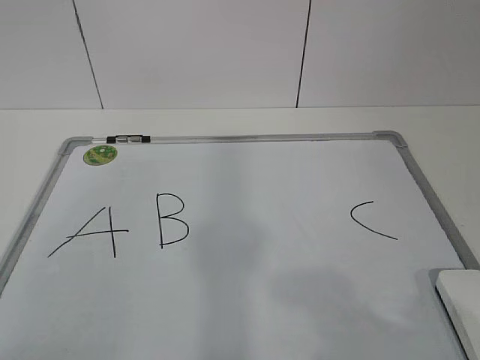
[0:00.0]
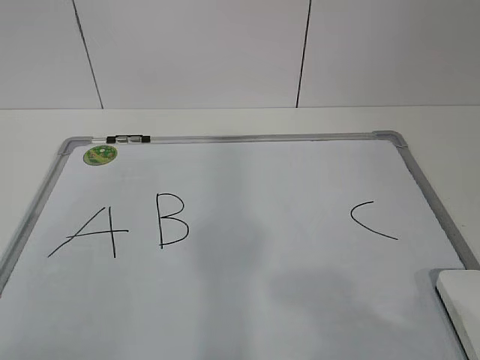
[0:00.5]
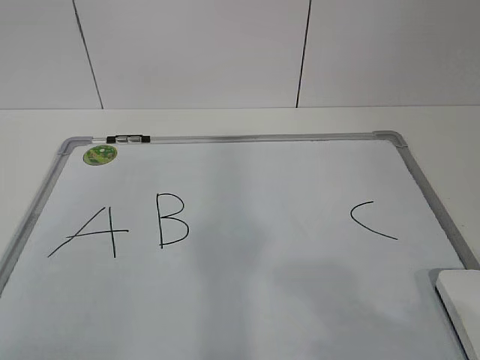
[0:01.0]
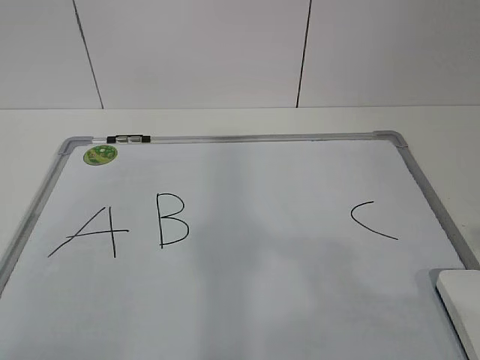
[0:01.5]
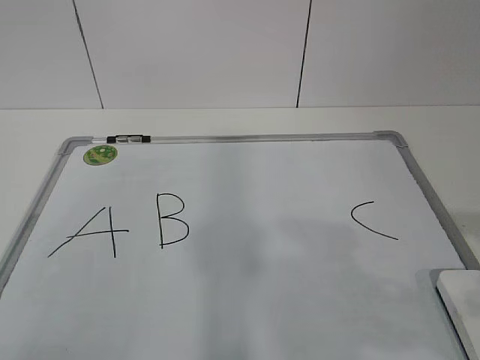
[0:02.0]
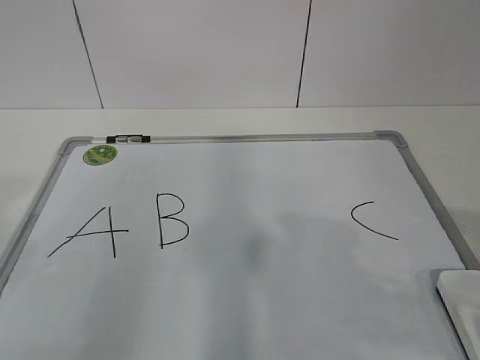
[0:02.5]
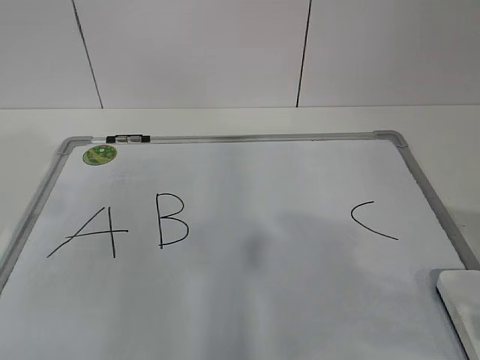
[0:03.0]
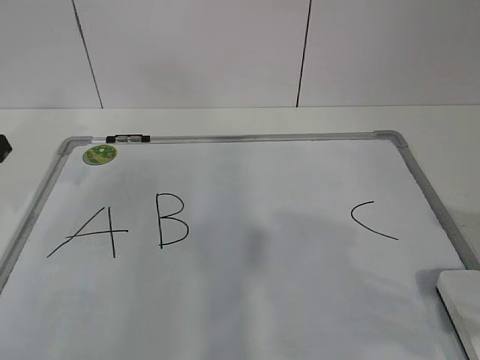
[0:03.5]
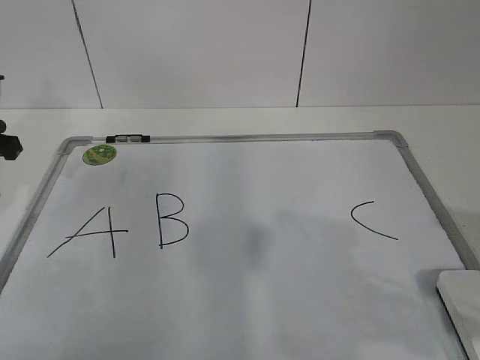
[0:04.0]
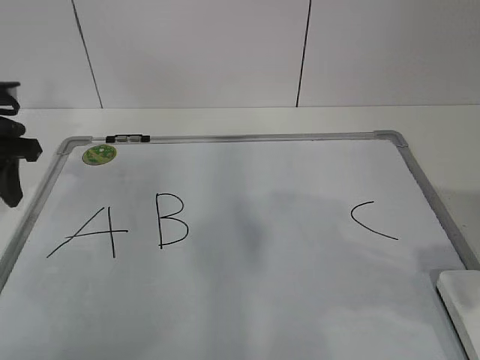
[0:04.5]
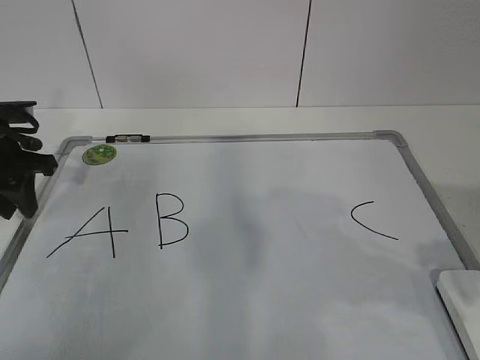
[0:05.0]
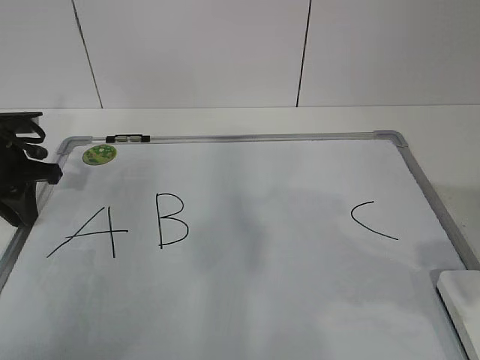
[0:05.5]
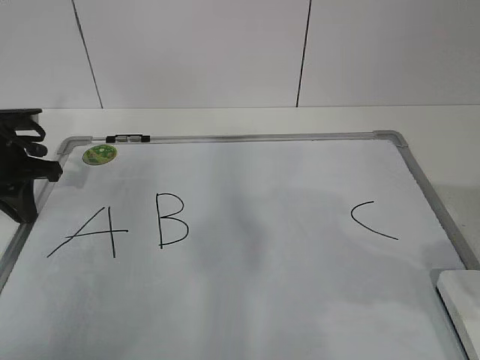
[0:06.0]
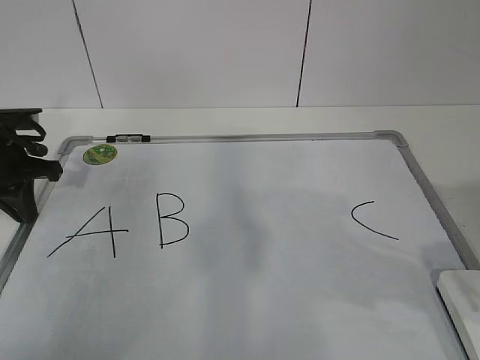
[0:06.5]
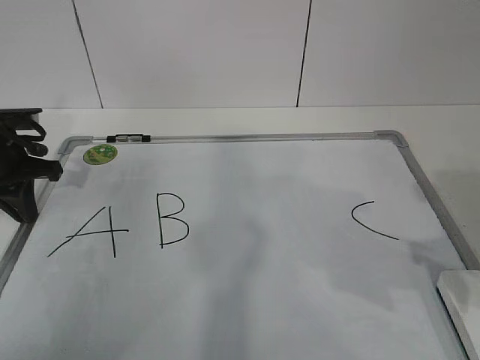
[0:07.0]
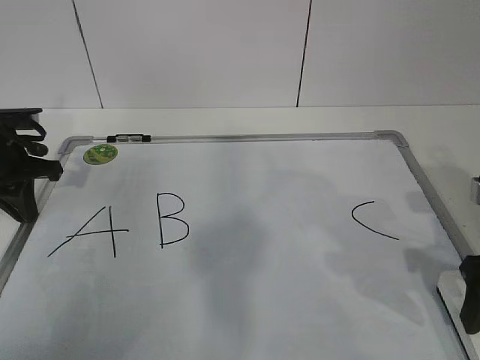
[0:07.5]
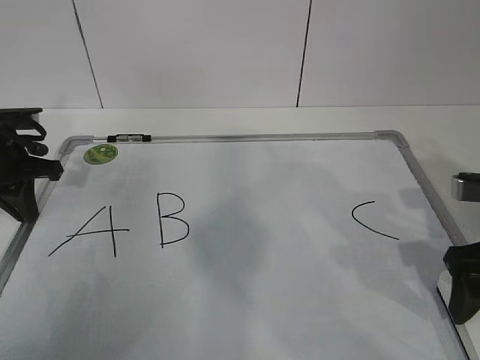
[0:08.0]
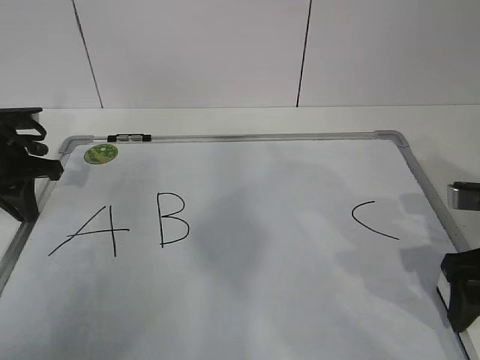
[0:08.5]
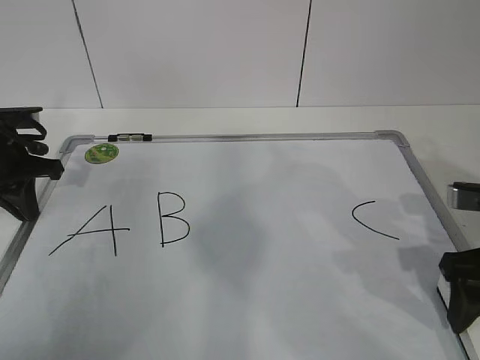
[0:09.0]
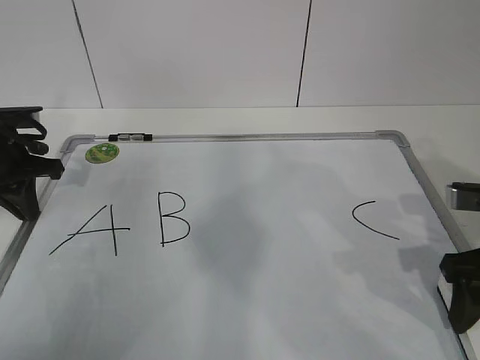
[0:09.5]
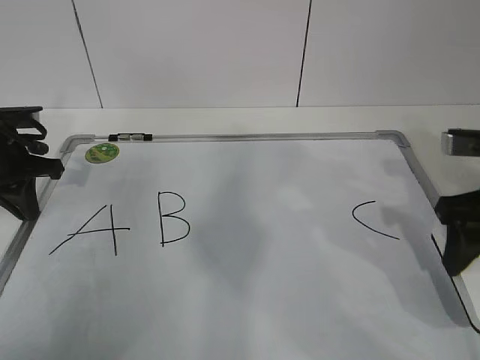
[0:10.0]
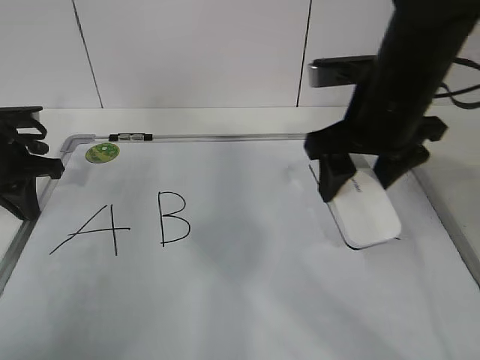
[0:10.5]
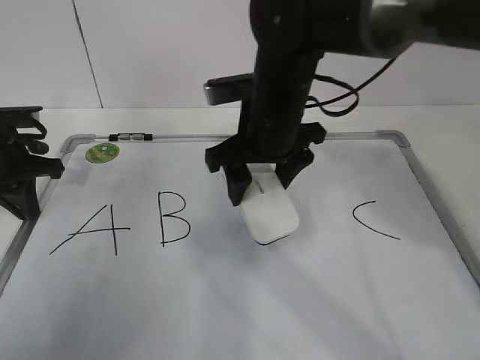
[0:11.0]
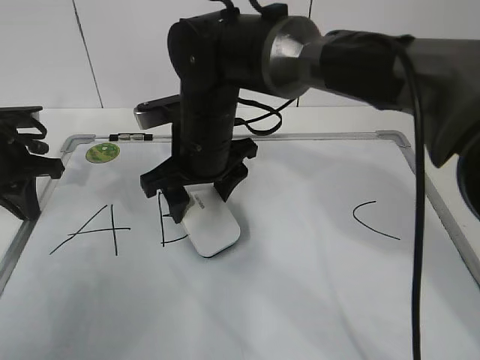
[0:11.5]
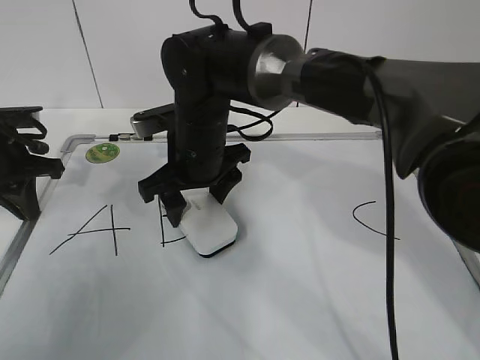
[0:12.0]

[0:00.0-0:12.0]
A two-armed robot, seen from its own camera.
Task of the whole recording: pick up the eraser on the blackboard and erase the letter "B".
Step, 0:00.0 to 0:04.5: Hold the drawing board steady with your left hand.
Step, 0:05.0 to 0:07.5: Grab the eraser with your right hand.
Step, 0:08.0 to 0:10.0: Put down the eraser with your right hand.
0:02.0 to 0:04.0: The left gripper heads forward, covering about 35 cm.
0:04.0 to 0:06.0: The left gripper heads downward, covering about 5 cm, and closes up.
0:06.0 to 0:08.0: The right gripper shifts some 15 cm forward and downward, and opens.
0:08.0 to 0:10.0: The right gripper closes its fingers.
0:10.0 to 0:12.0: The right gripper heads to the left, covering about 30 cm.

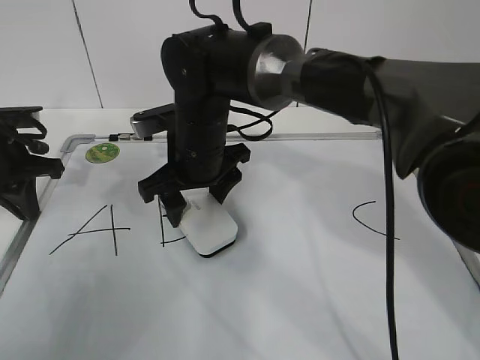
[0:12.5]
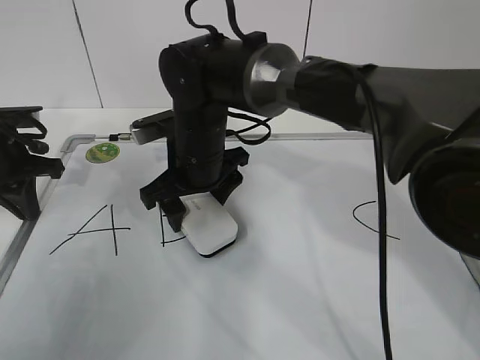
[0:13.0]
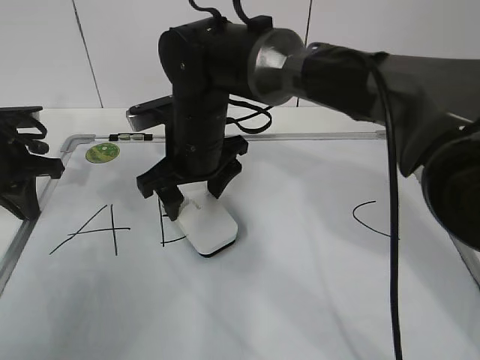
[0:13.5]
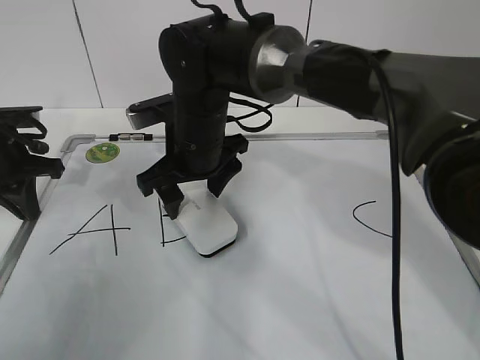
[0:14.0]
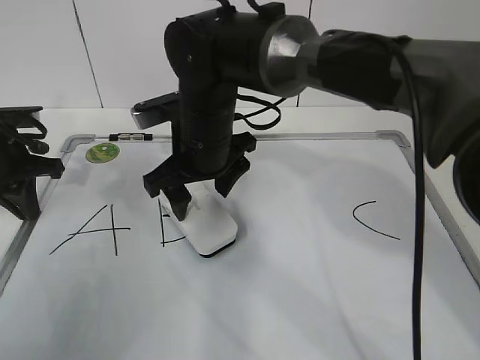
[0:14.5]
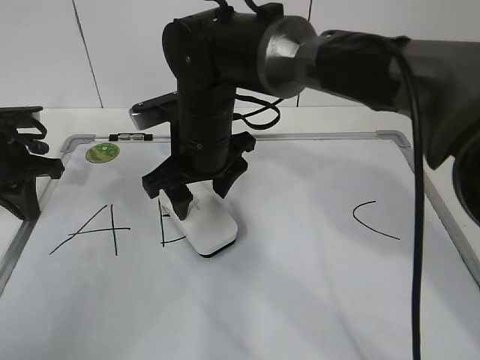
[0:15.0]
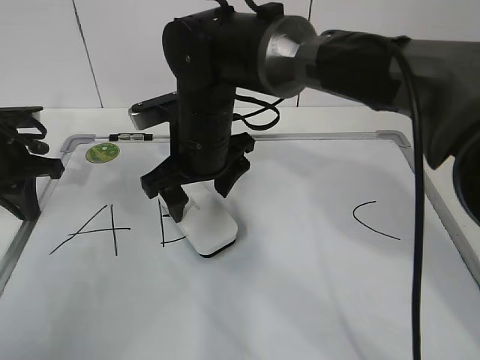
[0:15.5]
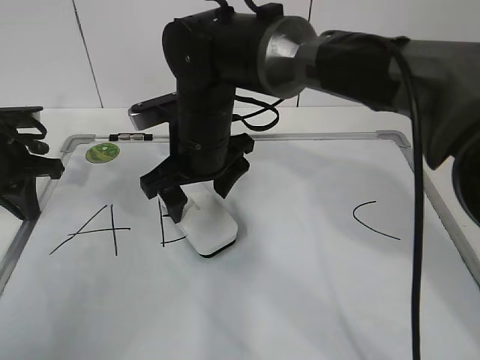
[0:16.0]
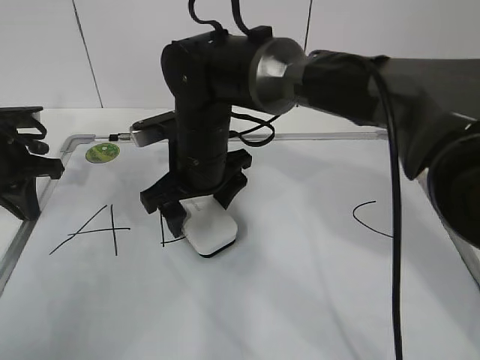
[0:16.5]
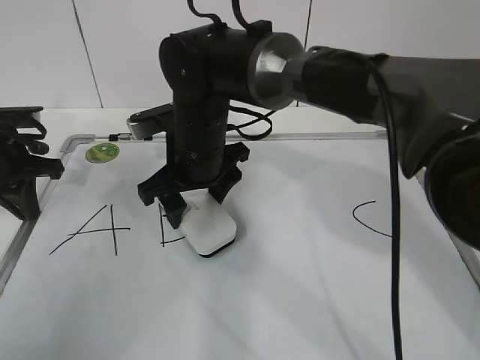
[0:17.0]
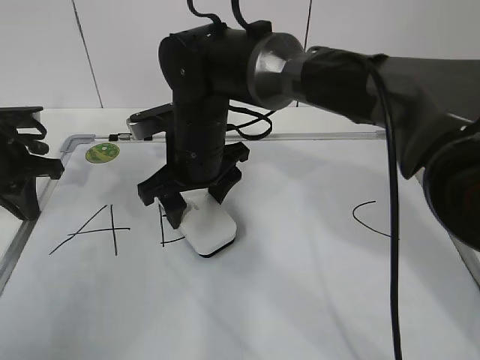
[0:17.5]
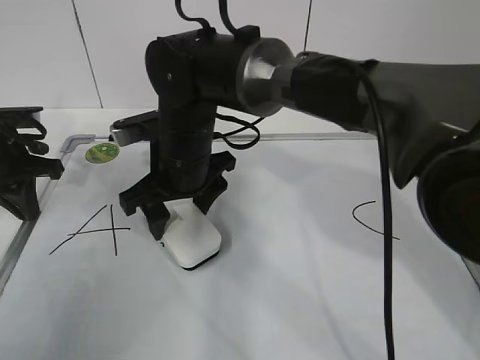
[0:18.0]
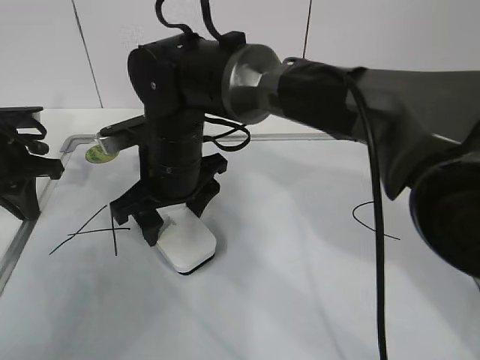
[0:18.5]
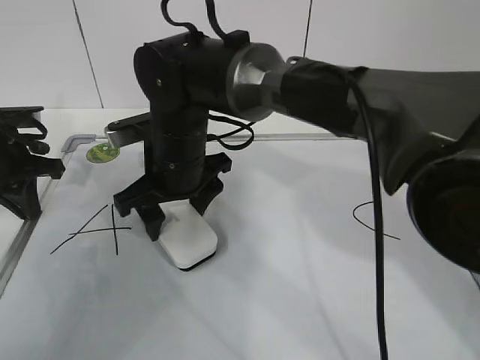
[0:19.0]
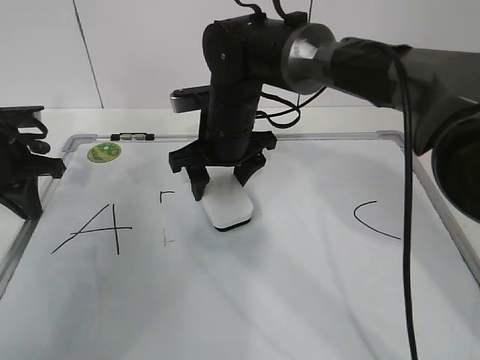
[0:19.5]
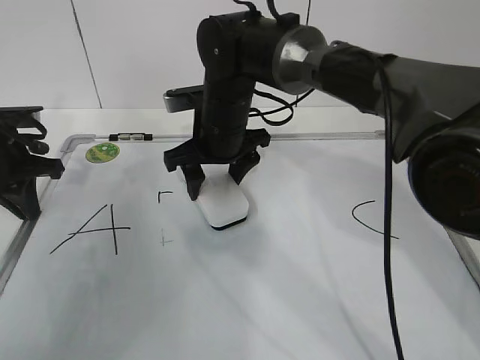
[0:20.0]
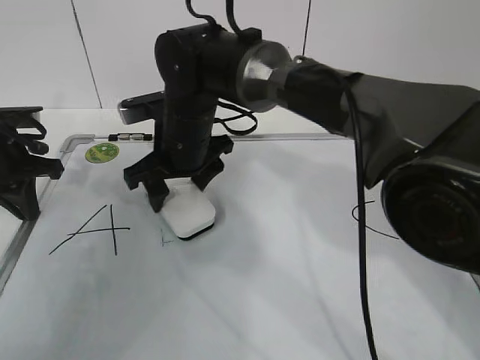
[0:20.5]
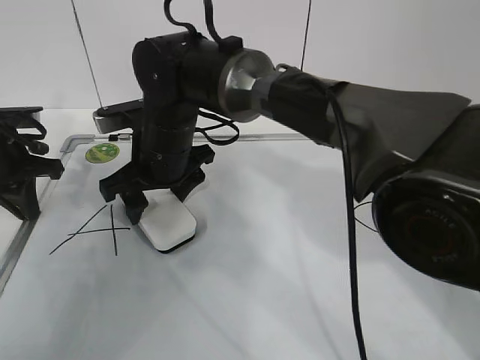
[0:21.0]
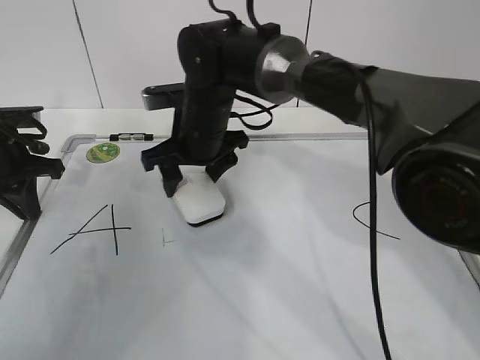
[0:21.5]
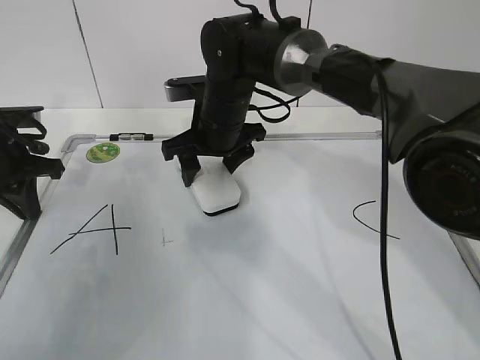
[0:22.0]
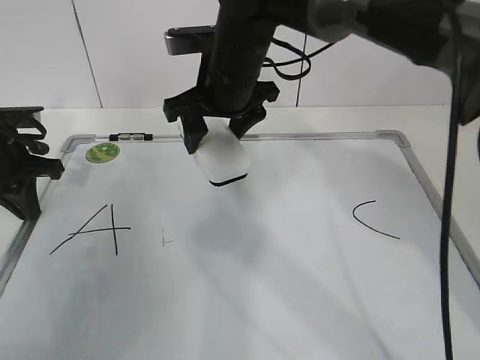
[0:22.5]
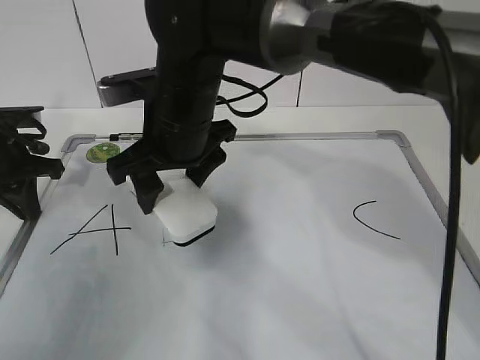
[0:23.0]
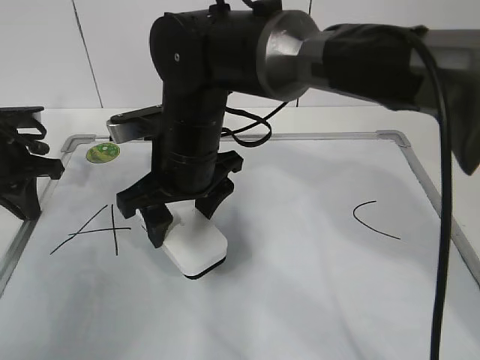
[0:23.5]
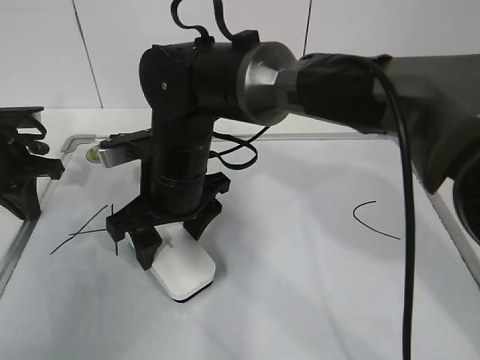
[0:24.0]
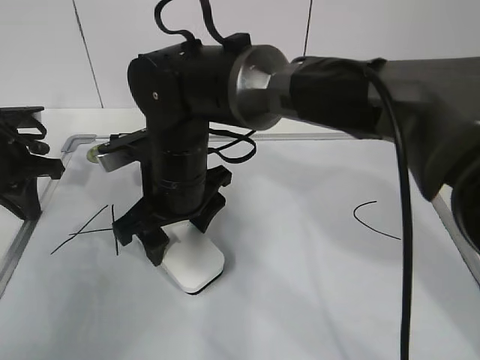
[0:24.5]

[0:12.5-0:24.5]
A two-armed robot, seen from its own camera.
Task of the whole recording: pick up the eraser on the blackboard and erase the letter "B".
Step, 0:14.5 to 0:21.5: Erase the letter B with your right hand.
0:12.5 to 0:14.5: The right gripper opens its fingers.
0:14.5 to 0:16.5: The right gripper opens up.
0:16.5 to 0:18.5: The right gripper closes up.
0:20.5 to 0:22.5: The right gripper moves upward and to the right, approximately 10 cm.
0:22.5 to 0:24.5: The right gripper shifts some 10 cm backward, downward and to the left.

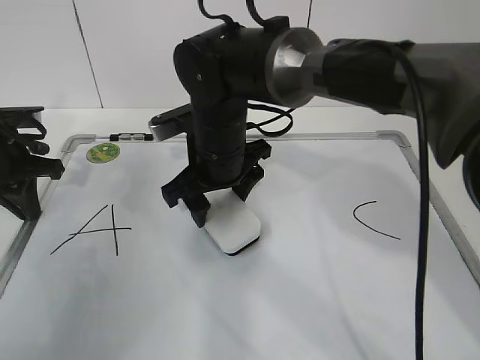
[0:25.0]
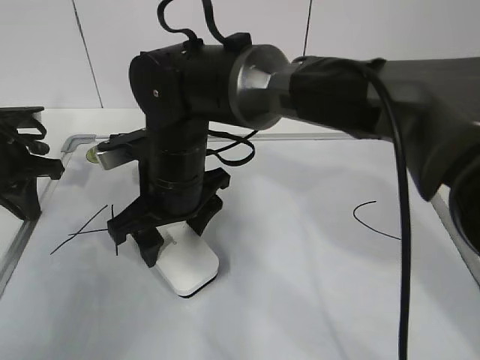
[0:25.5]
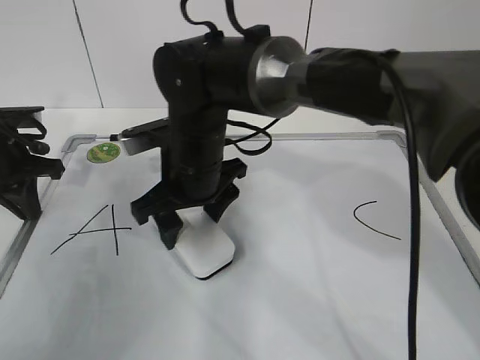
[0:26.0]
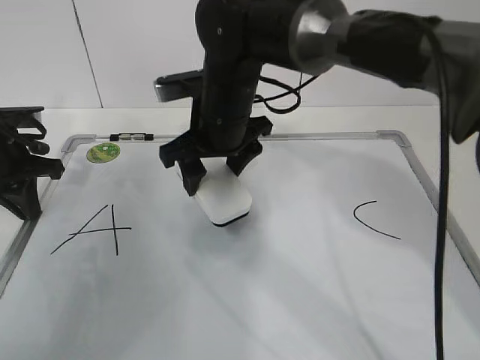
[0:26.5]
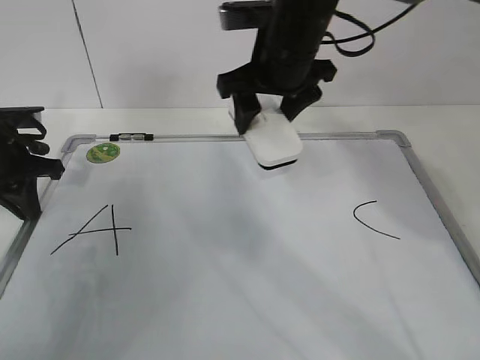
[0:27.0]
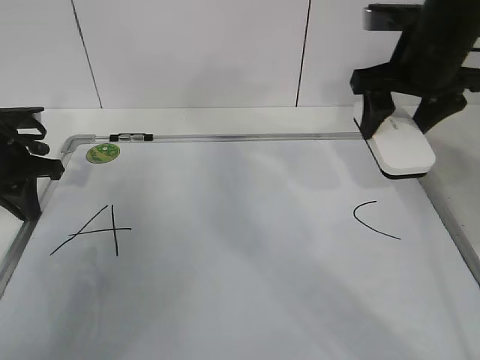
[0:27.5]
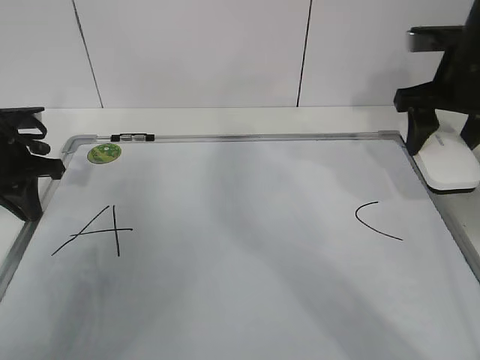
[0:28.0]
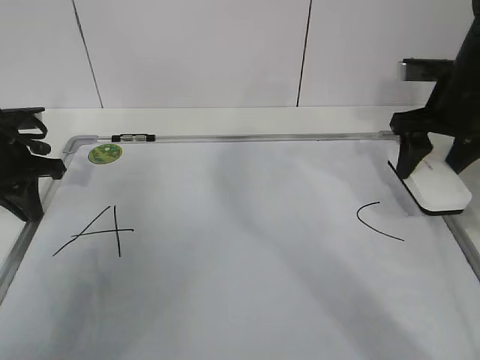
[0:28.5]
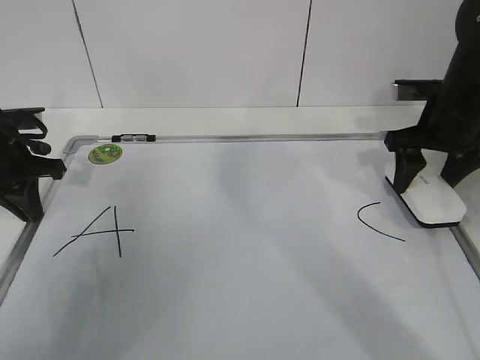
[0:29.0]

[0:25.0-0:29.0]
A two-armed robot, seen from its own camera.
Task of the whole recording: pick up the eraser on the blackboard and erase the letter "B".
0:25.0 to 0:27.0: The right gripper travels upward and to the right by about 10 cm.
0:27.0 to 0:29.0: The right gripper heads to the right, covering about 20 cm.
